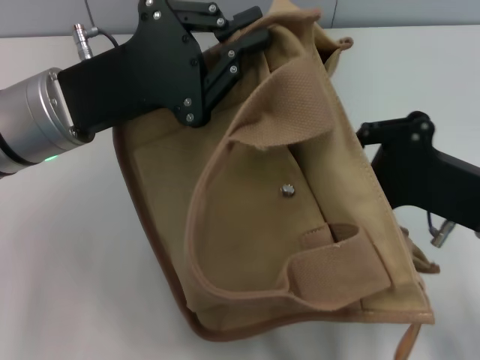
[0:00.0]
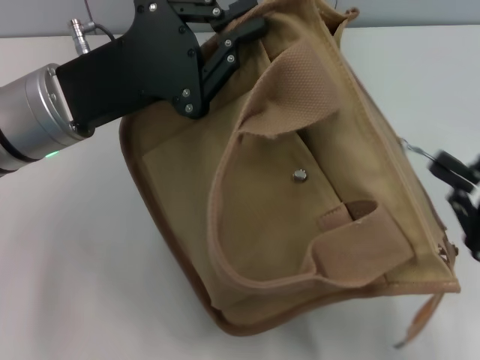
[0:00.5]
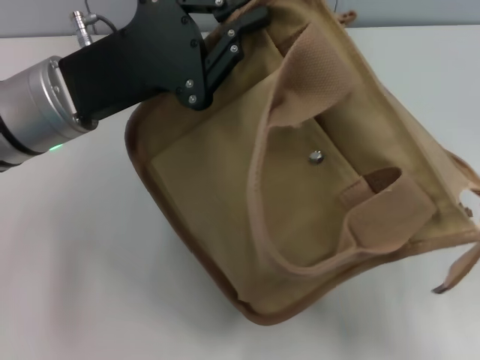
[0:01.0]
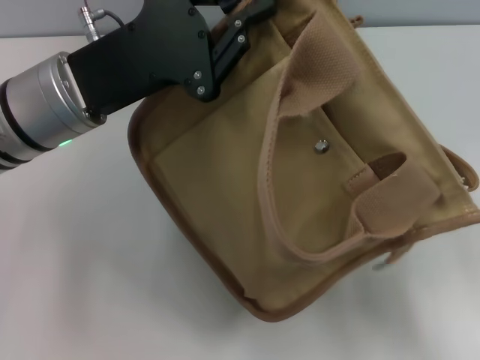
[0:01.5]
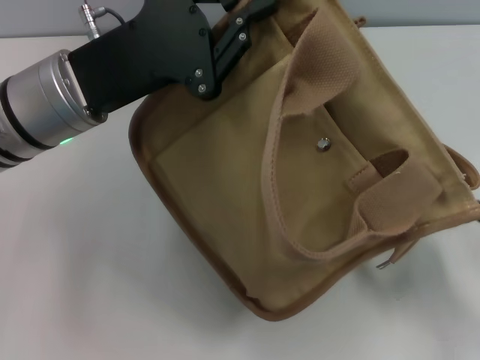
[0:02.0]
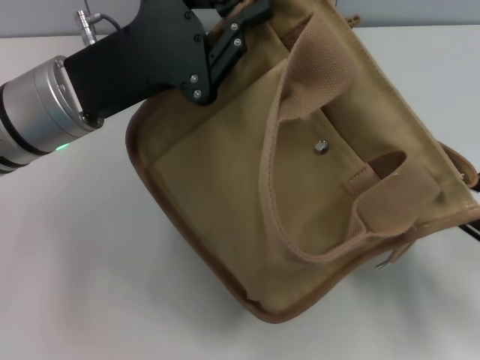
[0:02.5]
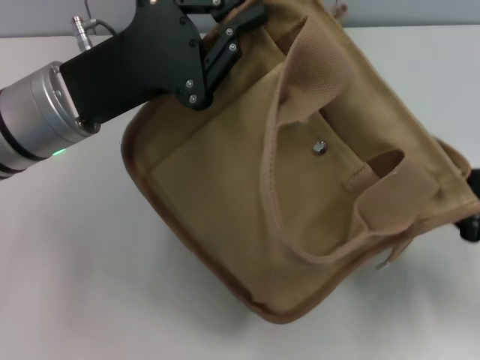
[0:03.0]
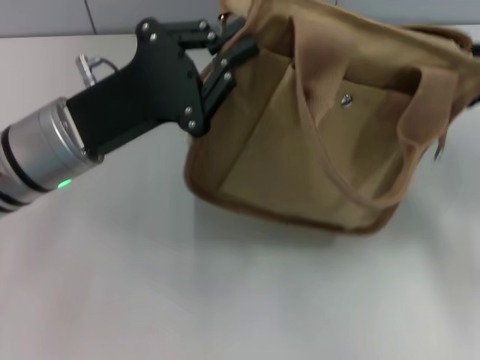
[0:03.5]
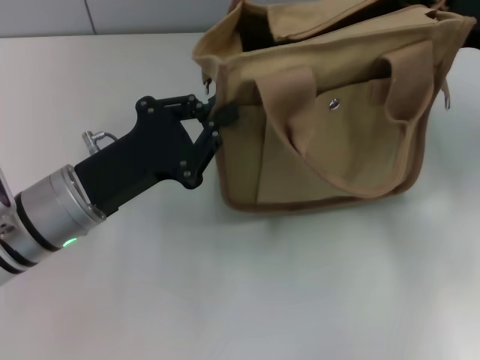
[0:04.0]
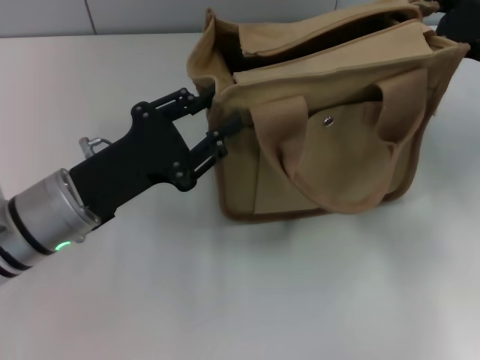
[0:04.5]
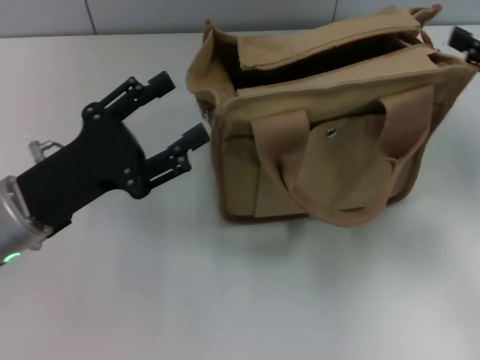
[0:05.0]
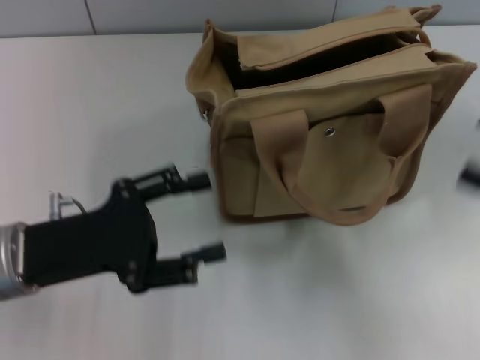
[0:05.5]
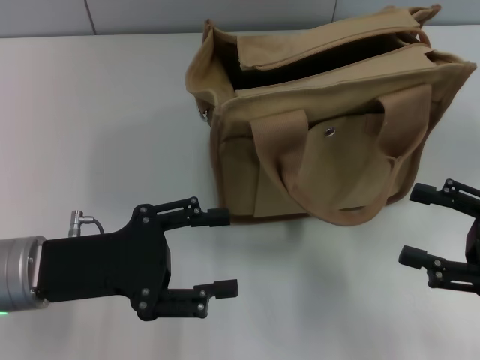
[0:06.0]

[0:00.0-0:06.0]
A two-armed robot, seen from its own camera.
Step, 0:02.0 to 0:04.5: Grab the bag with your left hand.
0:00.0 to 0:02.0: The right gripper heads to the right and backward, covering about 15 cm, and opens.
0:02.0 to 0:04.0: The right gripper travels forward and upward by approximately 20 cm, and closes up; the left gripper shifts some 10 cm downward and backward.
0:04.0 to 0:06.0: The right gripper travels backward by roughly 15 cm, and opens. Meanwhile the left gripper shifts by about 5 cm, and opens its fingers.

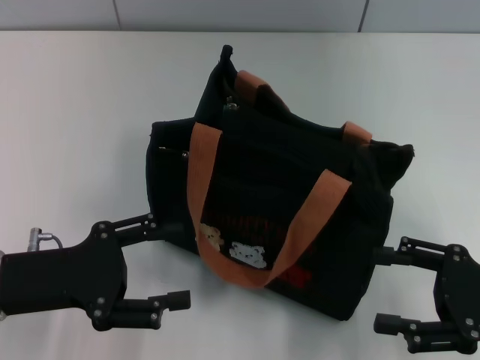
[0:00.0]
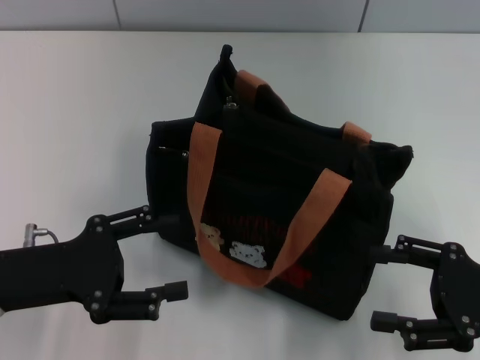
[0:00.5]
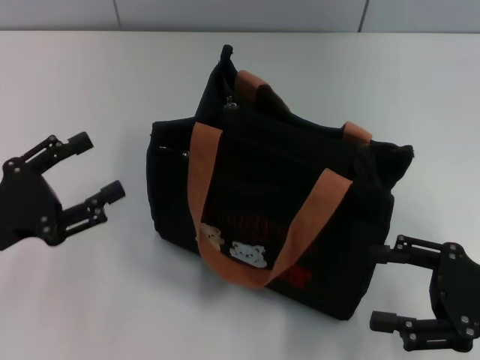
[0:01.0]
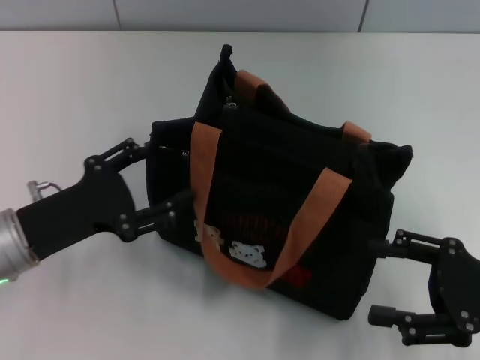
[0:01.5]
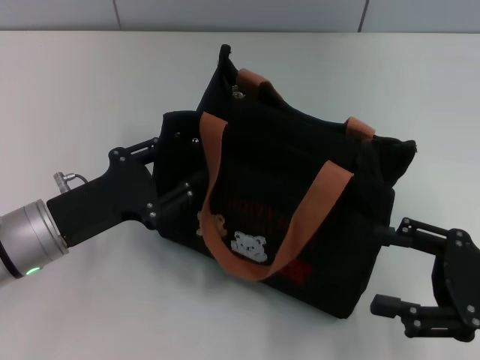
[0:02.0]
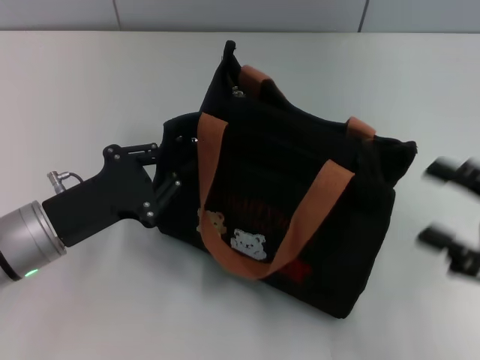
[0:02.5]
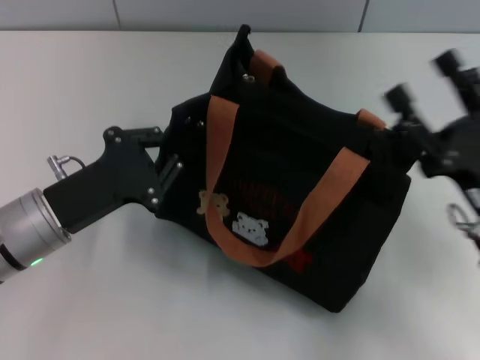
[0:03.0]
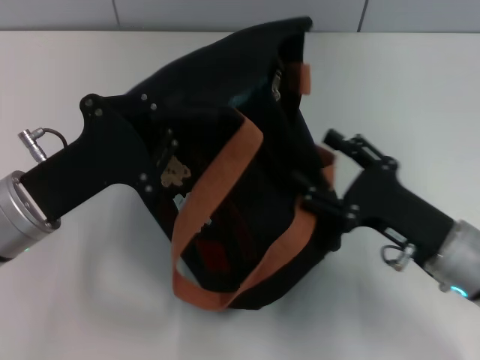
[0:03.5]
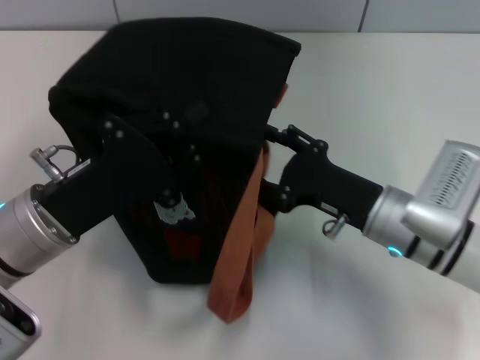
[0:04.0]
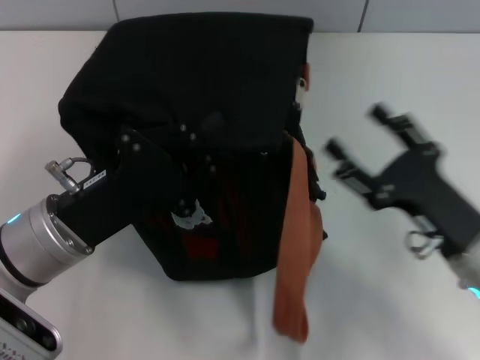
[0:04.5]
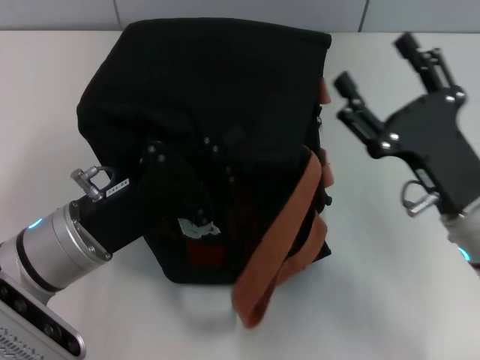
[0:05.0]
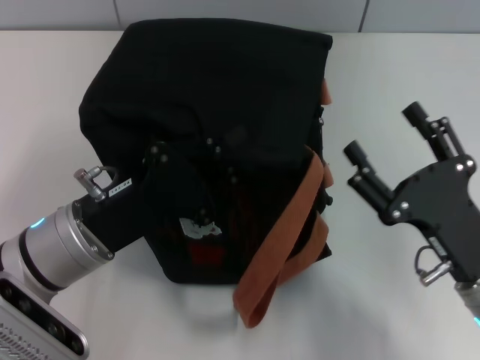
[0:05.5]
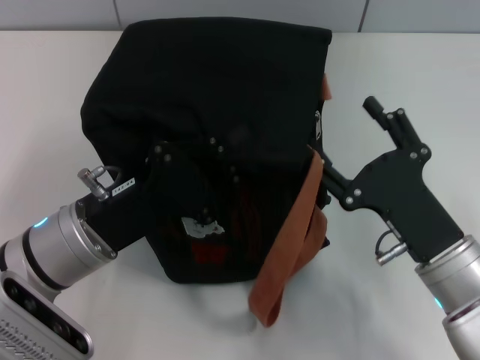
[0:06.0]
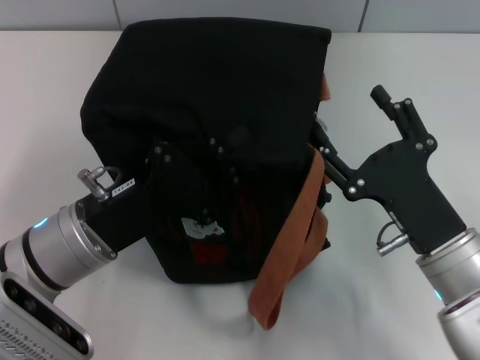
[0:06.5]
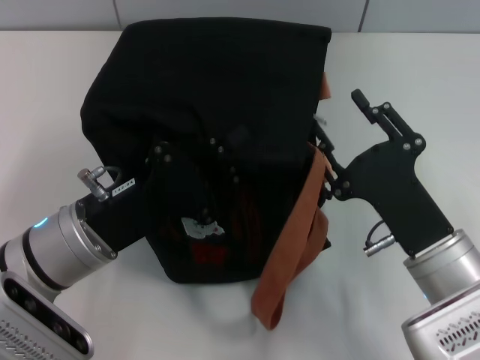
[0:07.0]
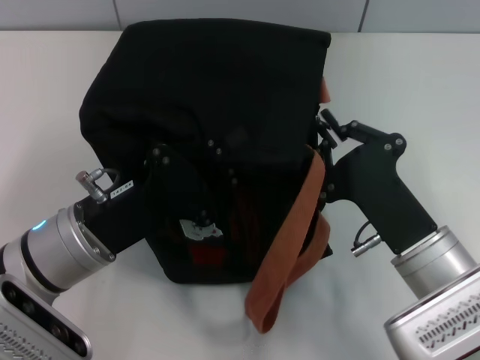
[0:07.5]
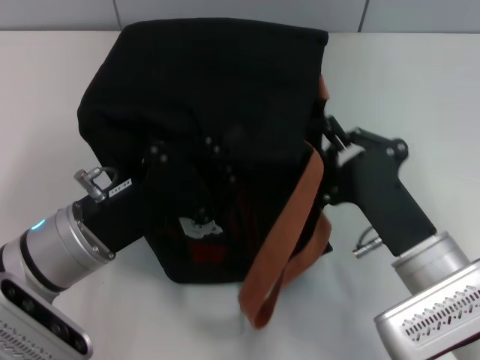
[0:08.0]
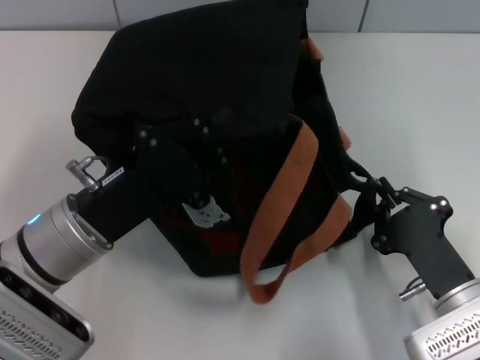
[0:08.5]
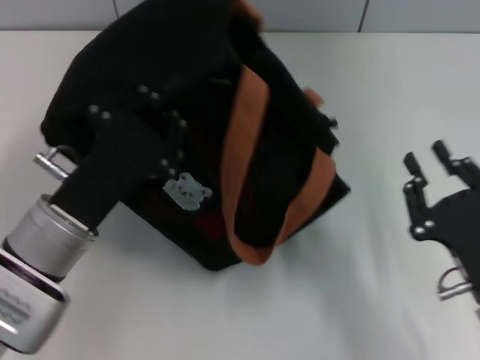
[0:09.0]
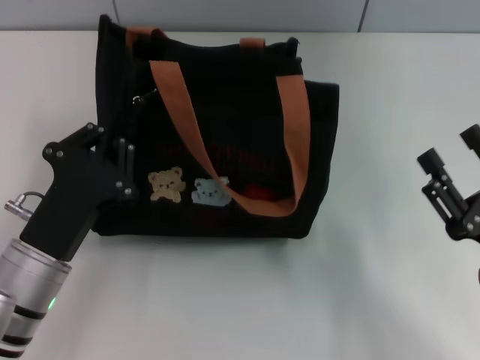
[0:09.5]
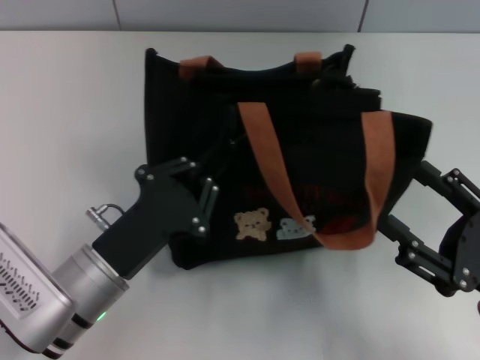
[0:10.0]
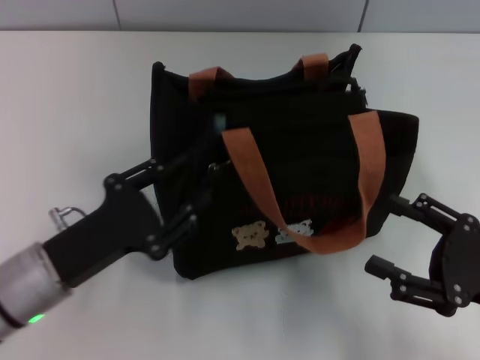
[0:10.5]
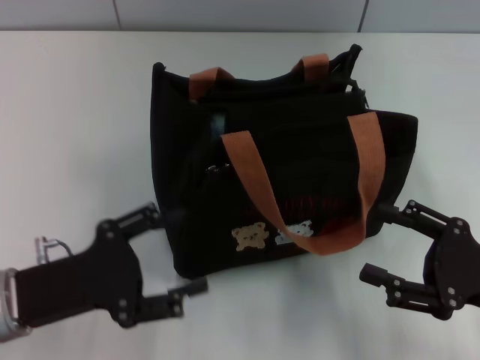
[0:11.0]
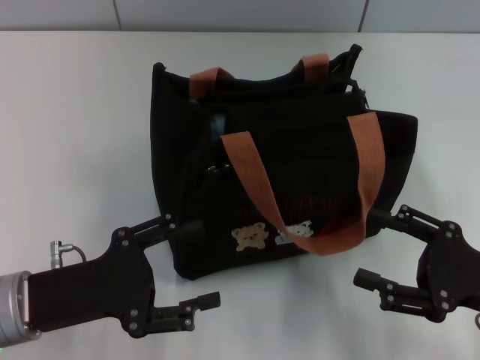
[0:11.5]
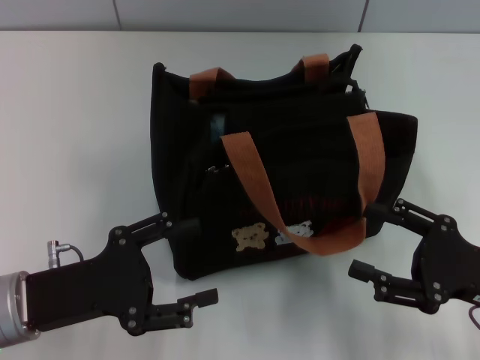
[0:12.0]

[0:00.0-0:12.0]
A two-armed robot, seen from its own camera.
Step, 0:00.0 to 0:08.5: Pull open the zipper with your right hand.
Step, 0:09.0 to 0:10.0: Grab the bag with your left hand.
0:00.0 to 0:02.0: The left gripper moves some 5 cm.
0:02.0 to 0:04.0: The right gripper moves to the left and forward, approximately 15 cm. Meanwhile the left gripper closes its fingers.
0:04.0 to 0:06.0: The right gripper shifts roughly 5 cm backward.
0:06.0 to 0:08.0: The right gripper closes its fingers.
0:08.0 to 0:10.0: The right gripper is displaced to the right by approximately 10 cm, and opens up. The left gripper ends up approximately 5 cm from where it was.
0:10.0 to 0:12.0: The left gripper heads to the left, covering roughly 5 cm, and opens.

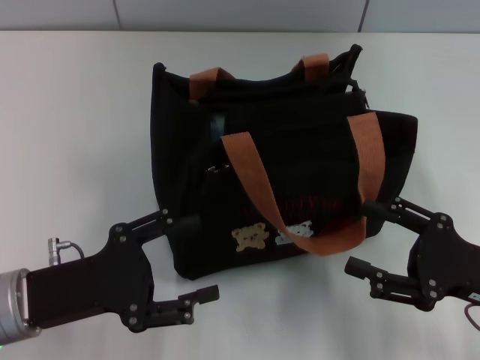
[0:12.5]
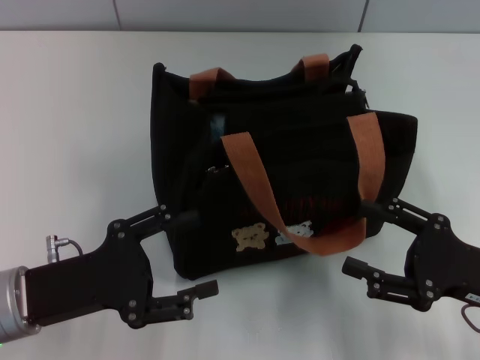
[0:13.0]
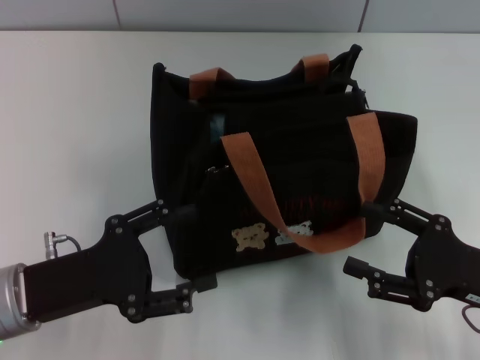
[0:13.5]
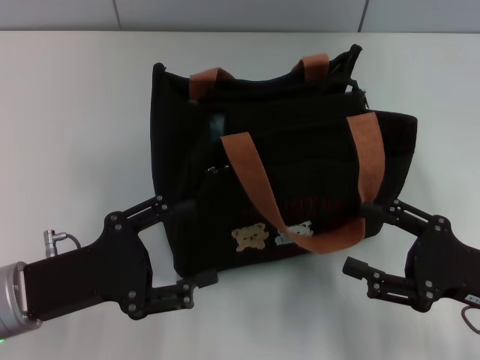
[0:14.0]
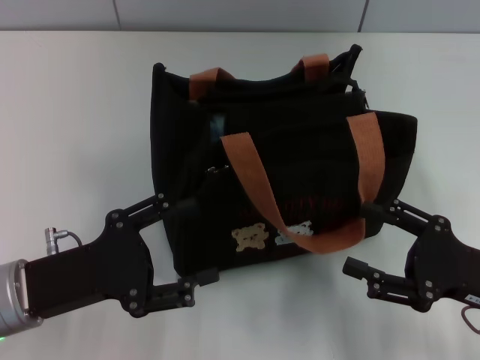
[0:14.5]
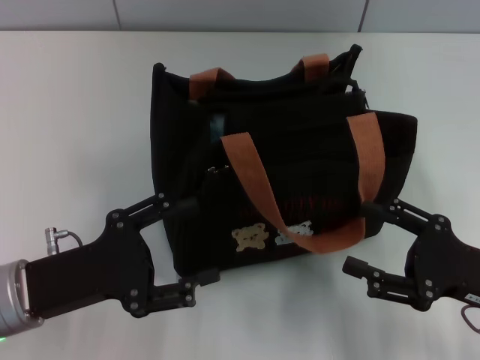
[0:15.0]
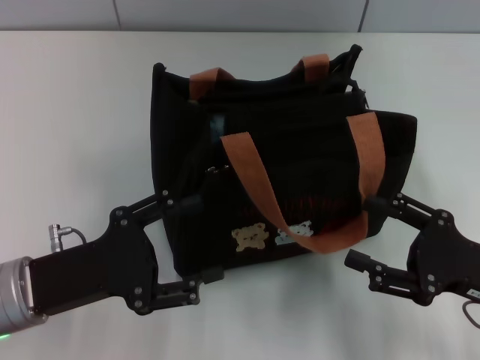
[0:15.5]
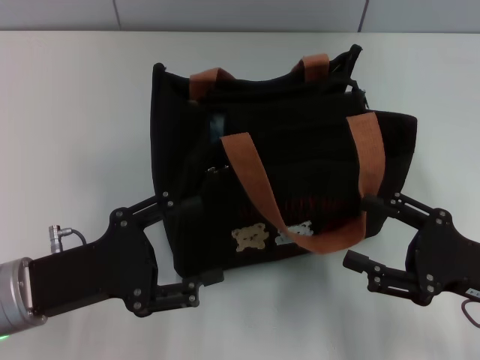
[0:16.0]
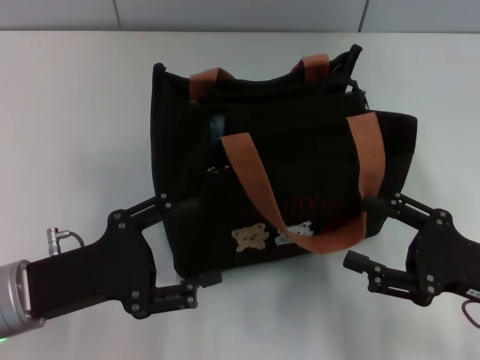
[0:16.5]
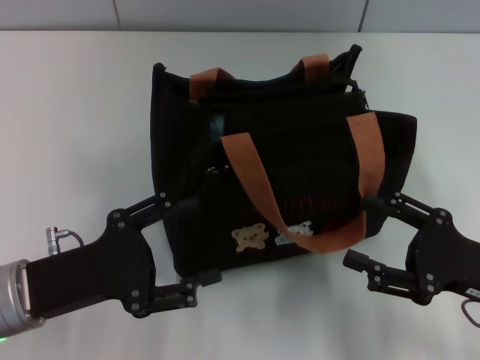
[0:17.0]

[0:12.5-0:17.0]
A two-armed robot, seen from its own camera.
0:12.5 to 0:17.0: Neither gripper changes place.
